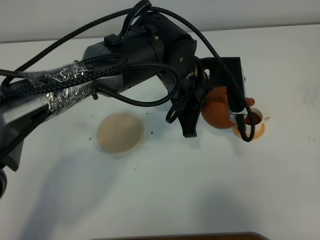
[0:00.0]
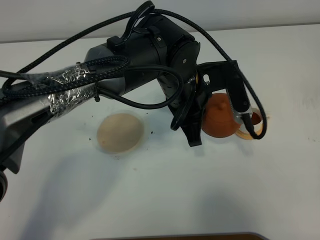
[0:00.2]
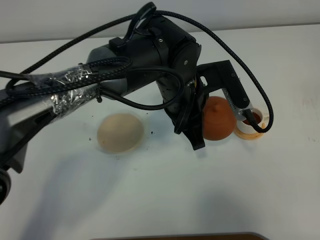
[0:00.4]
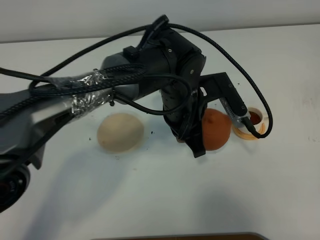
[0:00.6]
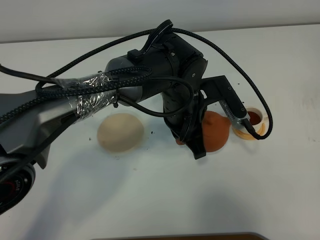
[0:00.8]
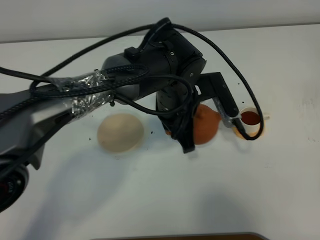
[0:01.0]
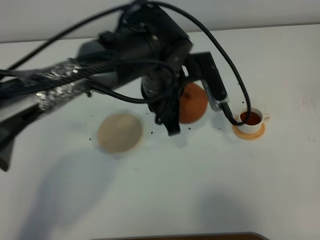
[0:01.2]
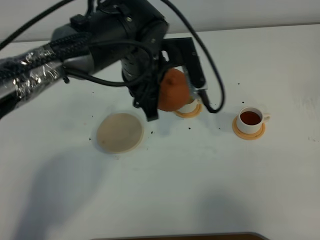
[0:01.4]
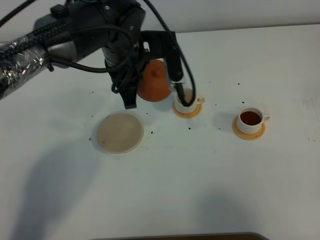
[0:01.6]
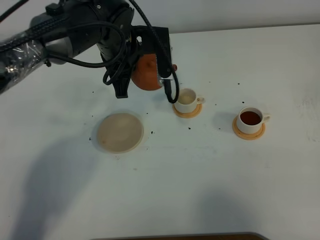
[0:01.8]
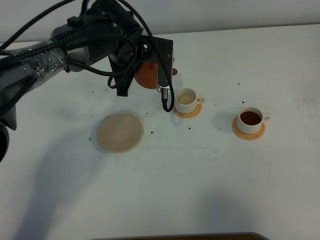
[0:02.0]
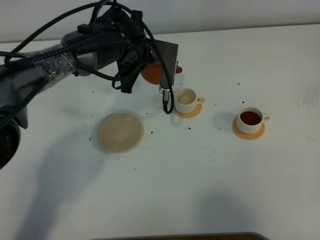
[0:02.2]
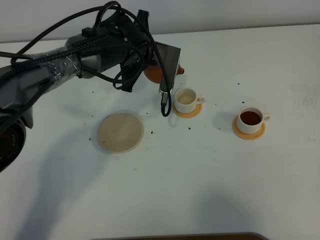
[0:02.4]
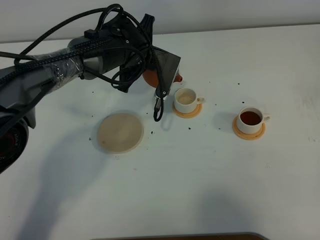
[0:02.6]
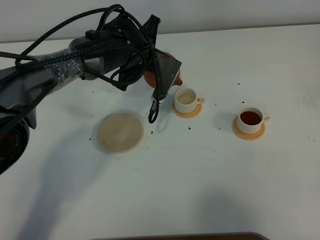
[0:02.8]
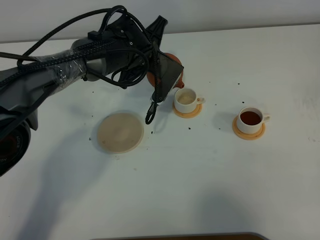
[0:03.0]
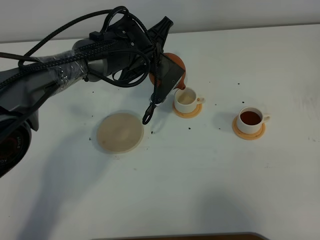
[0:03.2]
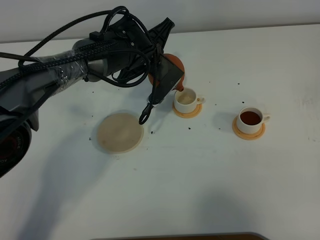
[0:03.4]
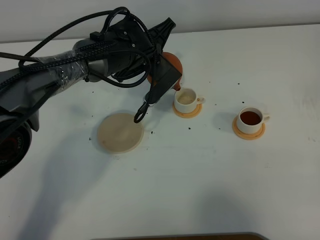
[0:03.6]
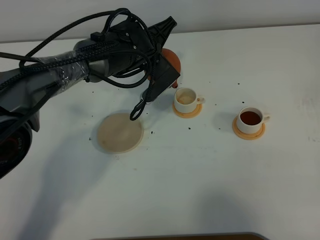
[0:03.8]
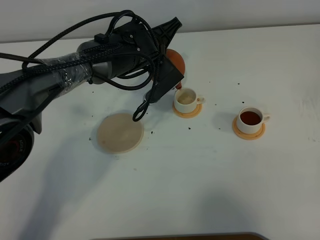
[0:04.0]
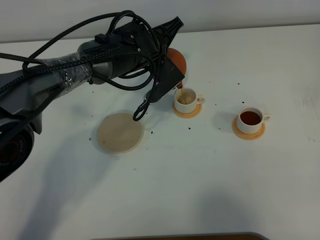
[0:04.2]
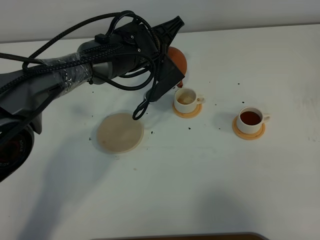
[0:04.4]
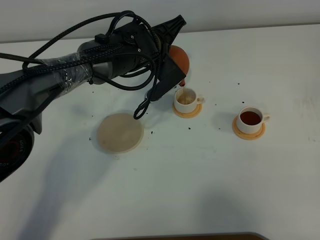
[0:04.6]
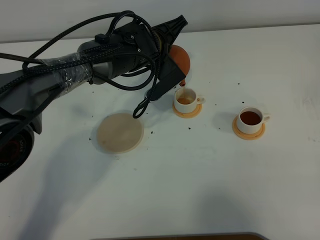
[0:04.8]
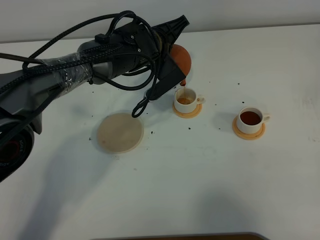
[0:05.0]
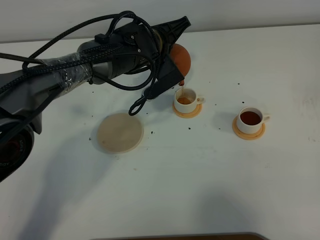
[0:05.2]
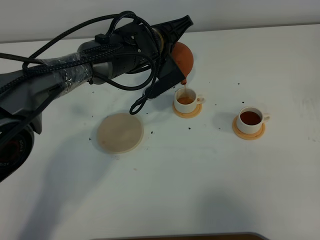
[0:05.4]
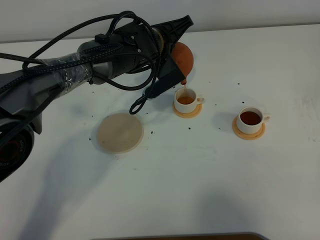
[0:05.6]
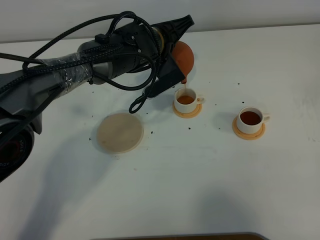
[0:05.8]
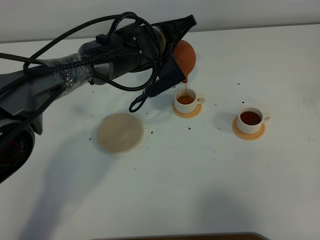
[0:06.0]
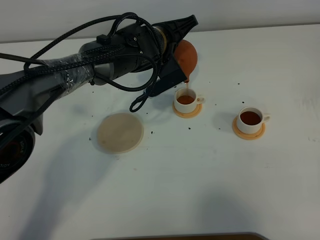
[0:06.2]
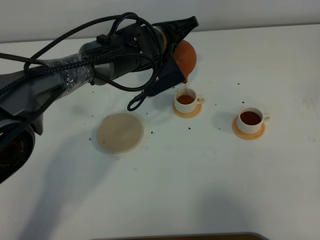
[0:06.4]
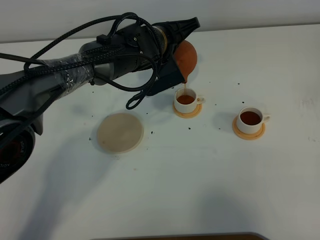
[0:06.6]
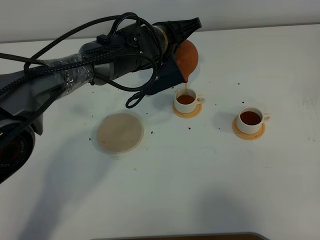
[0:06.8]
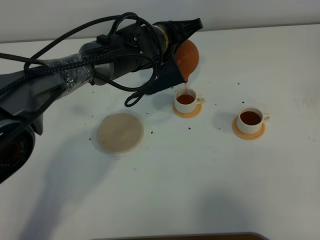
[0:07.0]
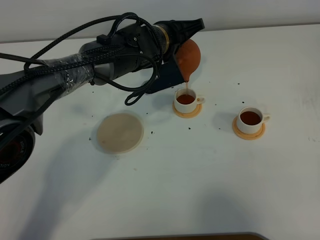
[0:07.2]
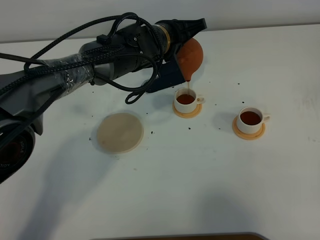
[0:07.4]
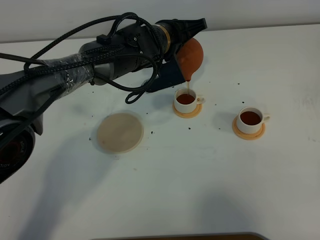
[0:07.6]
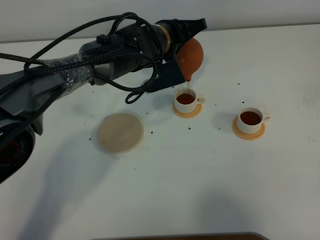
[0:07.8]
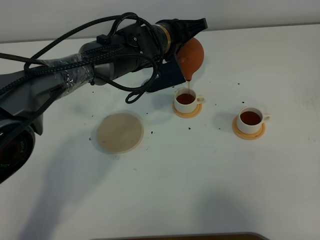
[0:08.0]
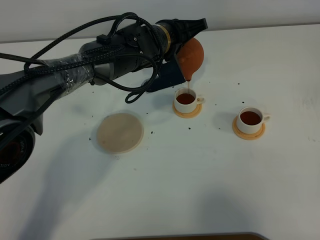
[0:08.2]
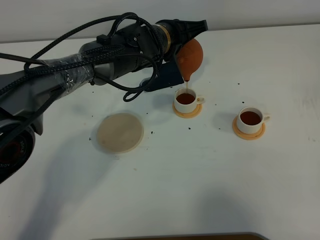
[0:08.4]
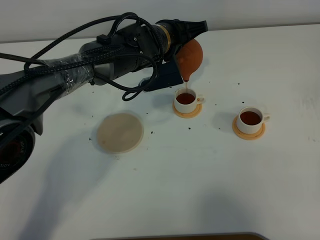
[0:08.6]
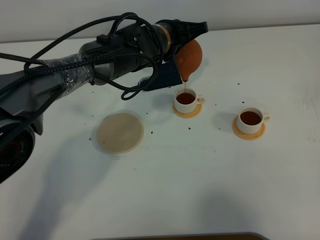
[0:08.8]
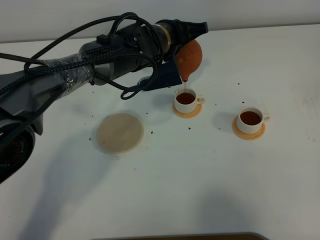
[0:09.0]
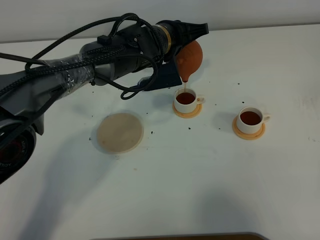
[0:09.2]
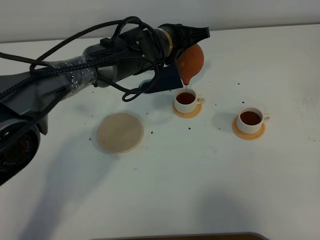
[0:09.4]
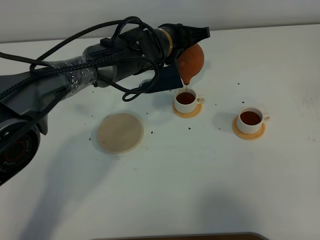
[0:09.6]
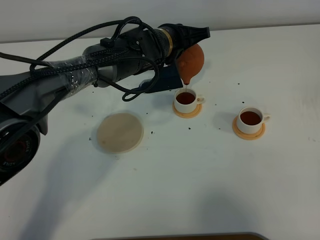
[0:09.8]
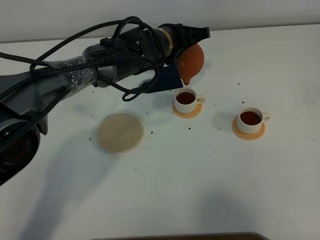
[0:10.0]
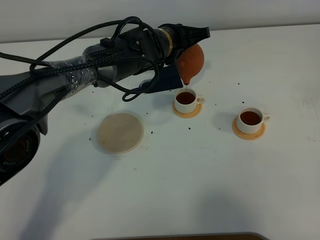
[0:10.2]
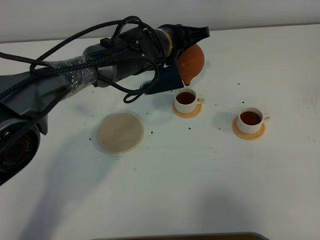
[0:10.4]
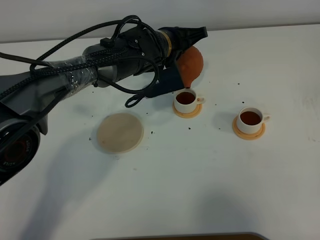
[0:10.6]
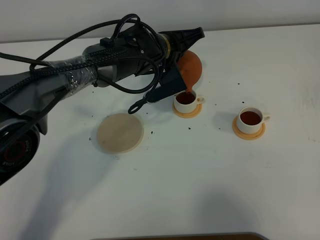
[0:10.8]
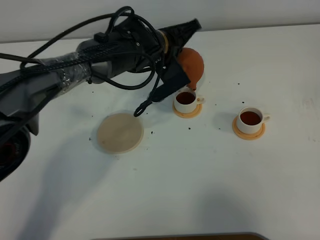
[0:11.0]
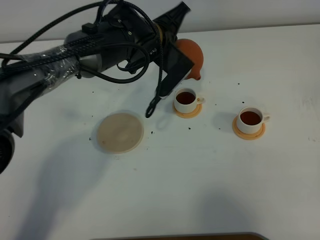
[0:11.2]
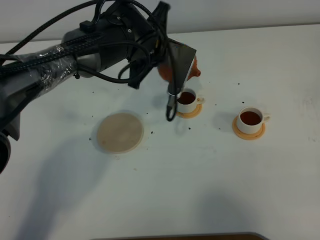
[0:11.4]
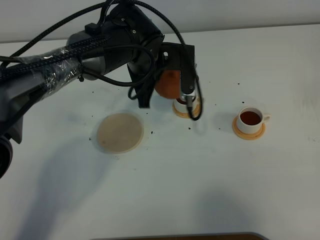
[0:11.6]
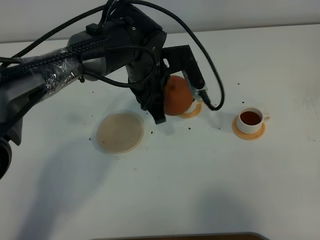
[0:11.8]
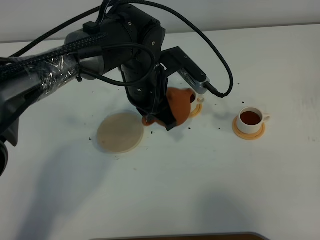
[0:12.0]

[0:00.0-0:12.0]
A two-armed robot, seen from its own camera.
Task of the whole recording: grasp the brown teapot and pour the tea into the two white teacups one by one, put the brown teapot back in its original place.
Step, 0:00.0 to 0:11.6: Pour tea into the teacup with the left gripper.
0:00.0 to 0:01.6: The left gripper goes some 10 cm to the left and forward.
0:01.6 to 0:03.0: The left gripper travels downward and forward by roughly 10 cm.
0:03.0 to 0:04.4: The grippers move only a little.
0:04.4 to 0:06.0: The grippers stay close to where they were, moving slightly.
0:06.0 to 0:09.0: The grippers stay close to where they were, moving slightly.
0:09.0 to 0:10.4: The two grippers keep their place.
0:10.4 to 0:12.0: The left gripper shifts approximately 10 cm backward.

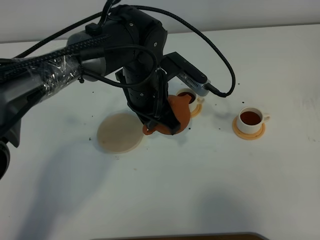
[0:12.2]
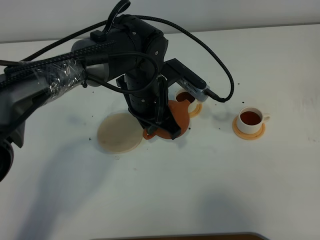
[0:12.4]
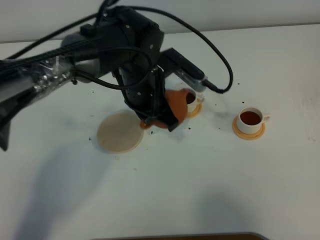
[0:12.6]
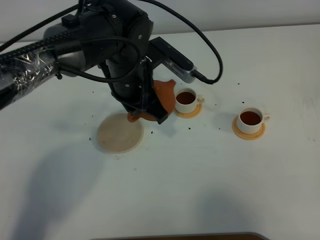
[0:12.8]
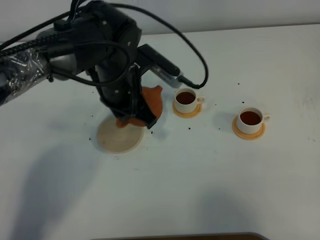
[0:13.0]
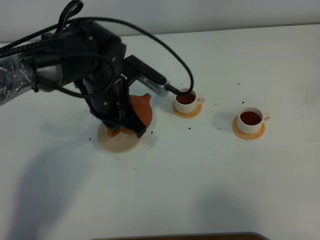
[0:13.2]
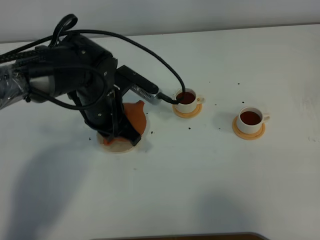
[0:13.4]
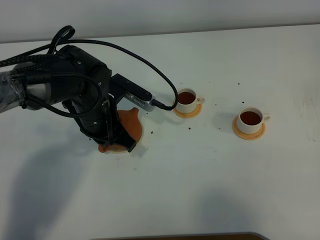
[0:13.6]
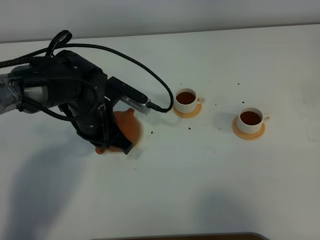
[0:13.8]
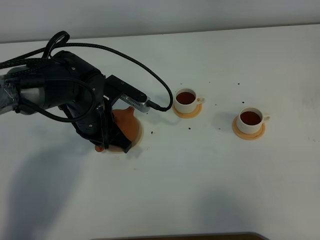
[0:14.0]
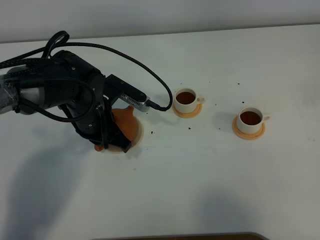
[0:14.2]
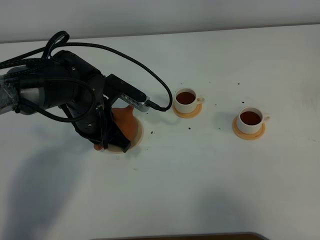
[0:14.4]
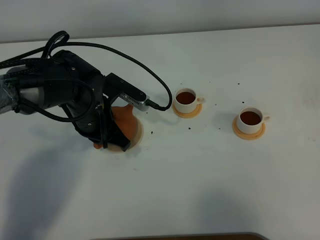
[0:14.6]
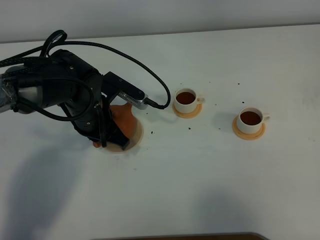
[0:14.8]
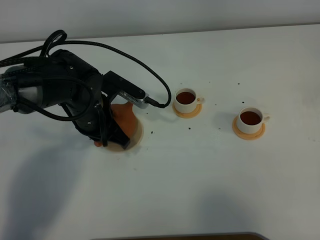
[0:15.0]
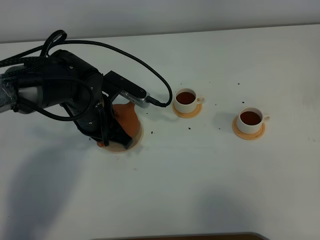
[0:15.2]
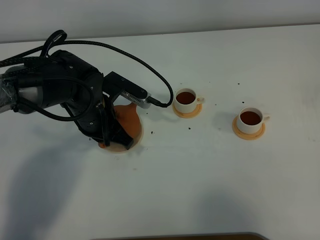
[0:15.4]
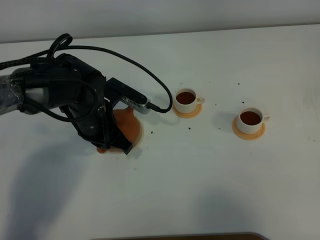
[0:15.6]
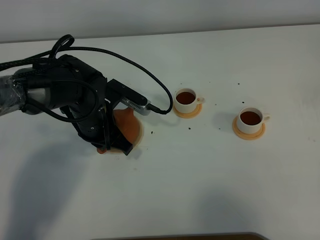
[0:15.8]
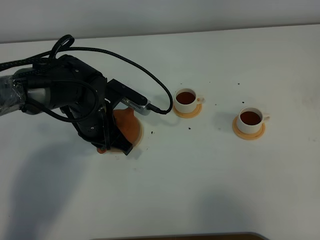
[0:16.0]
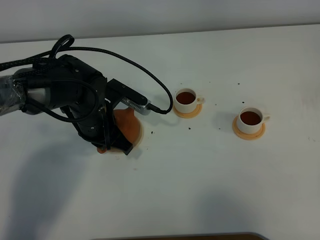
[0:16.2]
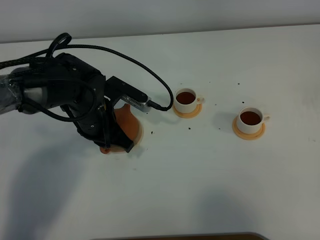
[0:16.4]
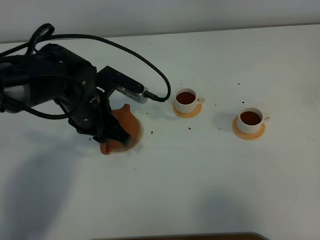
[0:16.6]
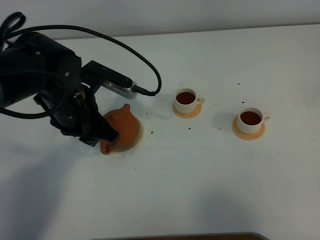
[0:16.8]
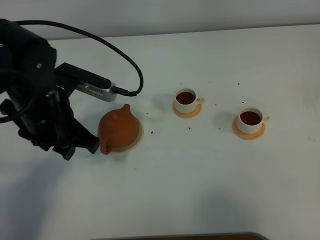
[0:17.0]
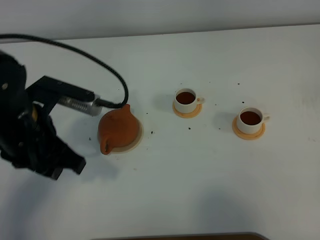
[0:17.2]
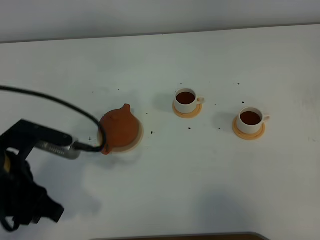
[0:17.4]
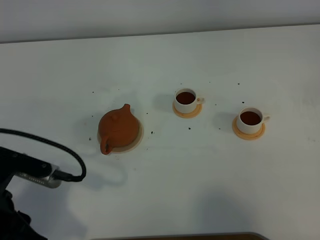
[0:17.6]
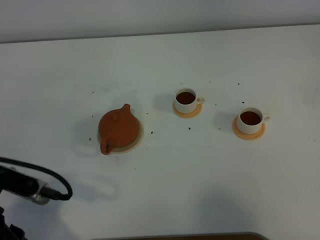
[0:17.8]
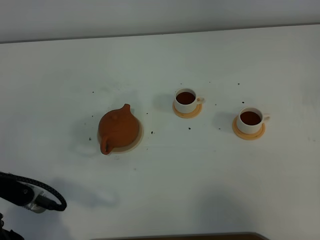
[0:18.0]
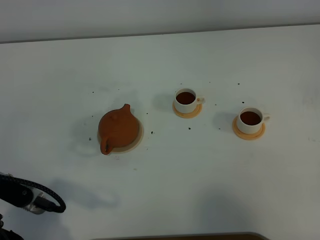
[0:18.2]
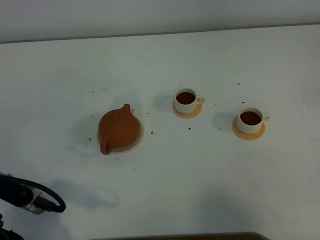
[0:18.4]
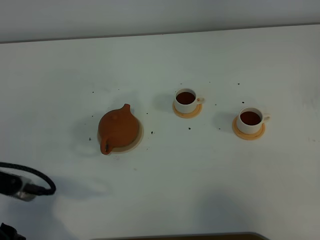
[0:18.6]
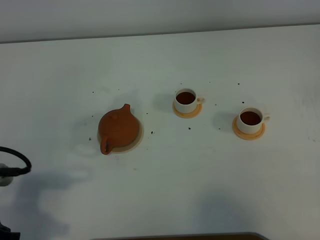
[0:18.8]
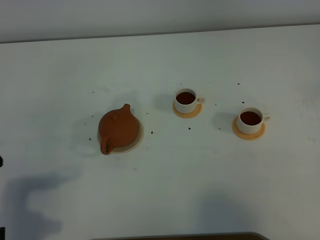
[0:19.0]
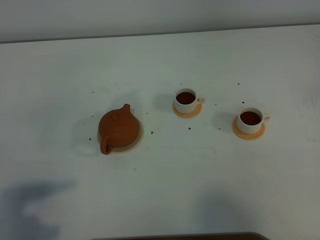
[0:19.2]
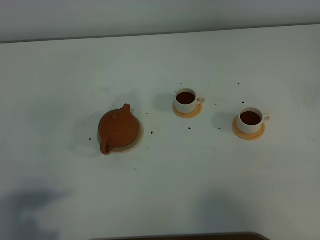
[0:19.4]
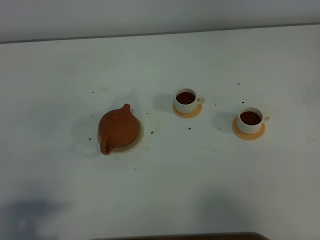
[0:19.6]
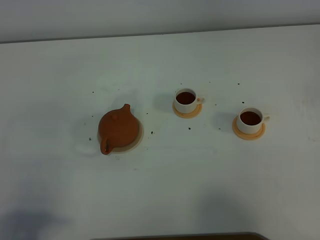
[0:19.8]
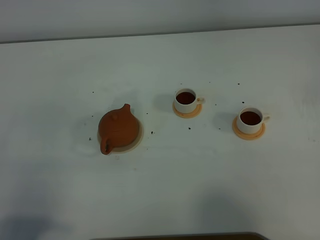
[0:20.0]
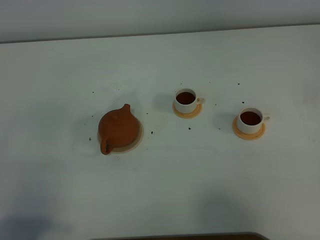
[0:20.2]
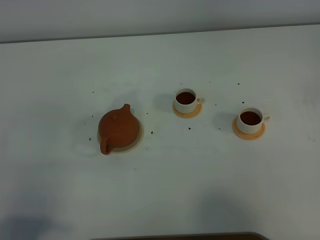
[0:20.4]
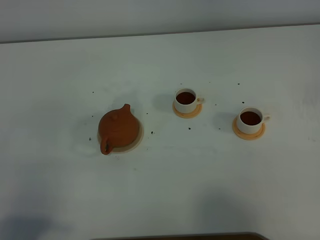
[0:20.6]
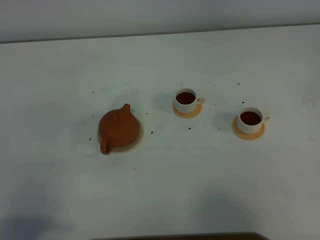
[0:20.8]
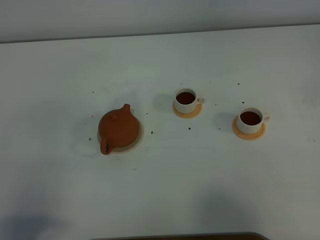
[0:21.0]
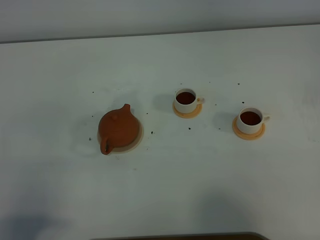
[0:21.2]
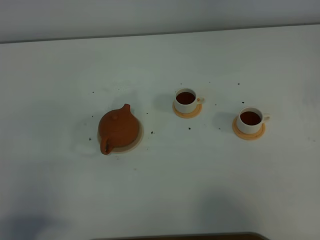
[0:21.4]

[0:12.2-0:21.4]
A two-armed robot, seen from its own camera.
Task of the whole recording: grasp the brown teapot and pour the tea into the two white teacups one by one, put the brown teapot back in its original place.
0:12.2 to 0:13.8: The left gripper is displaced to the left by roughly 10 cm.
0:13.8 to 0:15.2: The two grippers keep their place.
0:15.2 to 0:16.8: The left gripper shifts roughly 5 cm upward, and opens its fingers.
0:16.8 to 0:18.4: The left gripper shifts roughly 25 cm backward and to the left.
0:18.4 to 0:19.8: The left gripper heads backward, covering approximately 10 cm.
0:19.8 to 0:21.4: Both grippers stay put.
